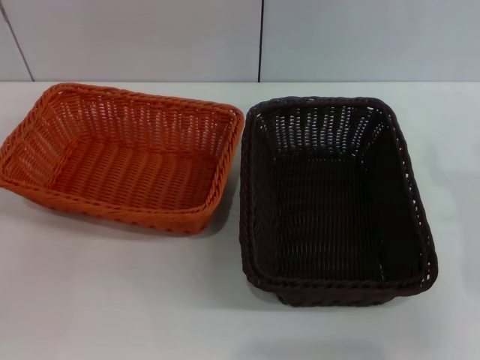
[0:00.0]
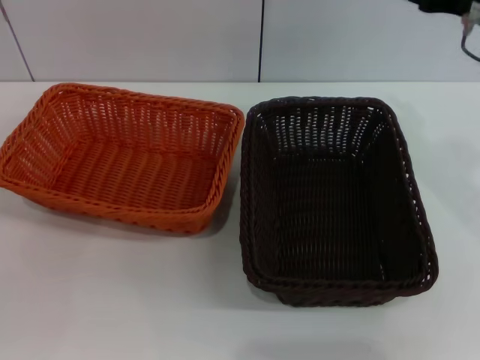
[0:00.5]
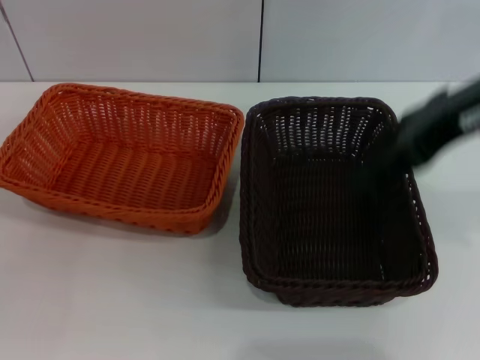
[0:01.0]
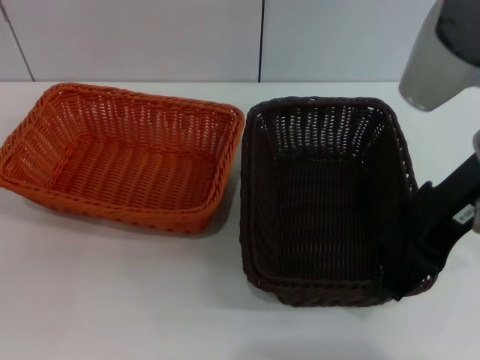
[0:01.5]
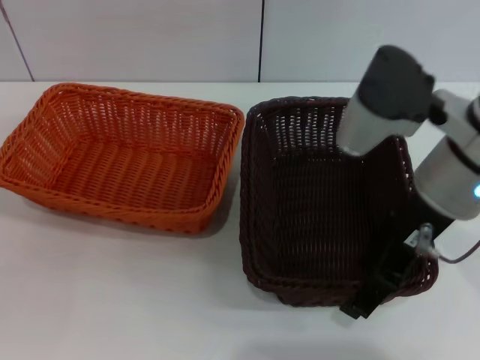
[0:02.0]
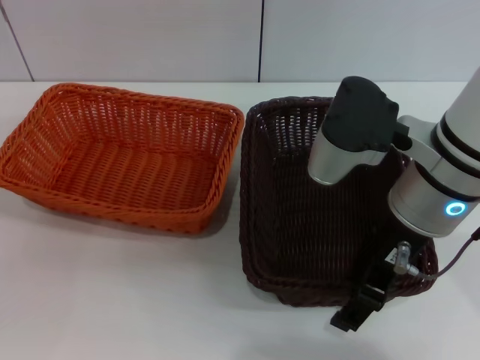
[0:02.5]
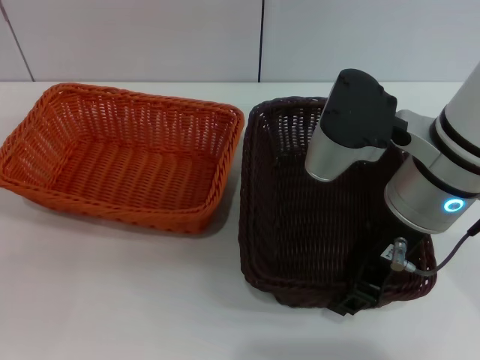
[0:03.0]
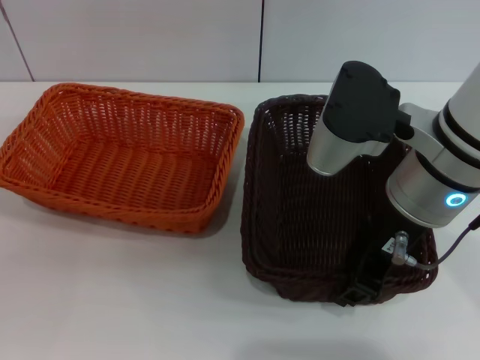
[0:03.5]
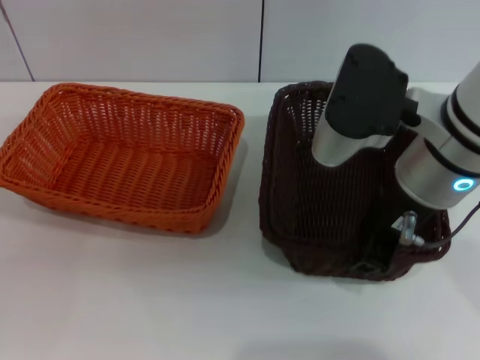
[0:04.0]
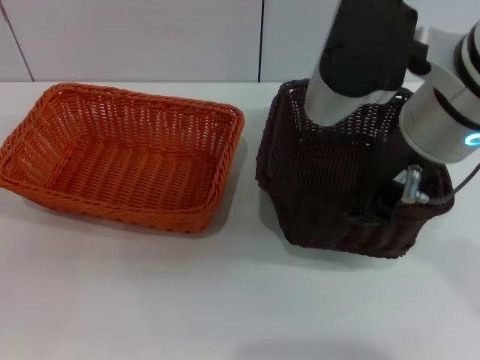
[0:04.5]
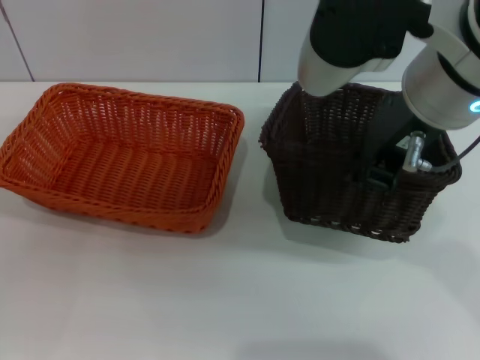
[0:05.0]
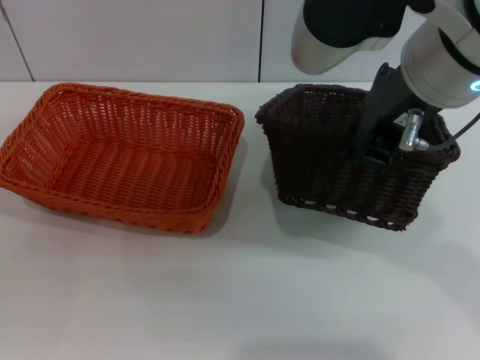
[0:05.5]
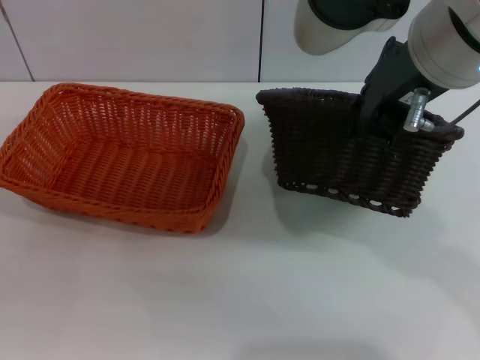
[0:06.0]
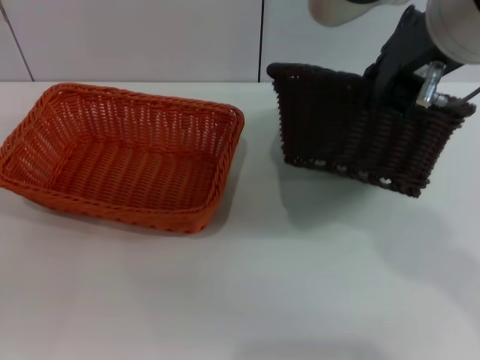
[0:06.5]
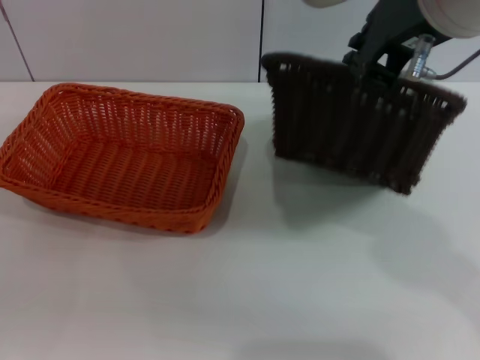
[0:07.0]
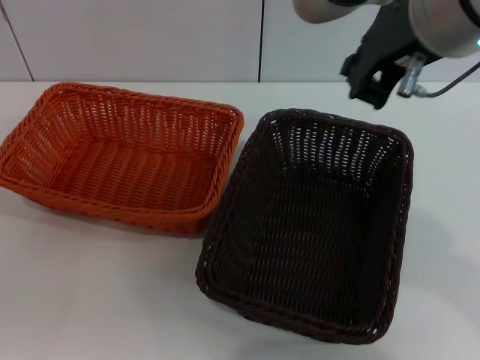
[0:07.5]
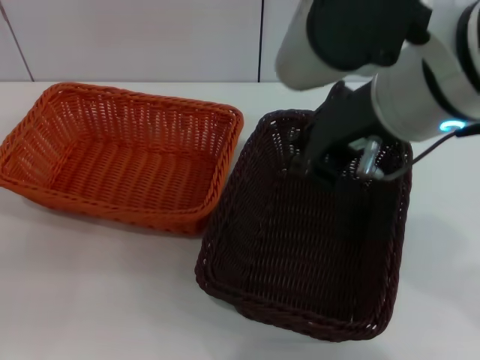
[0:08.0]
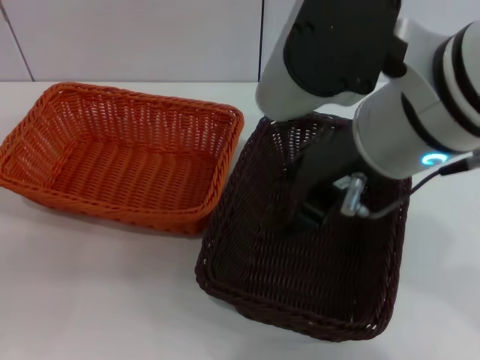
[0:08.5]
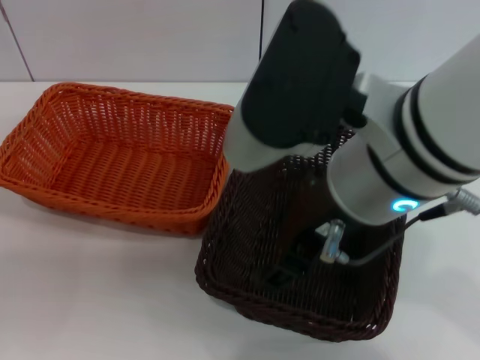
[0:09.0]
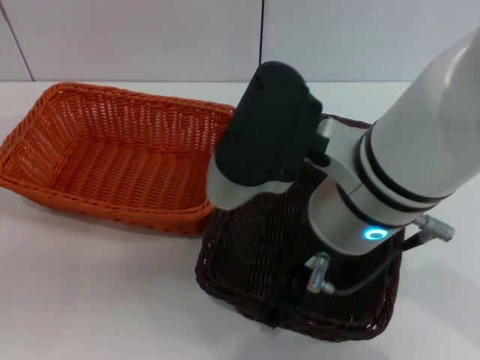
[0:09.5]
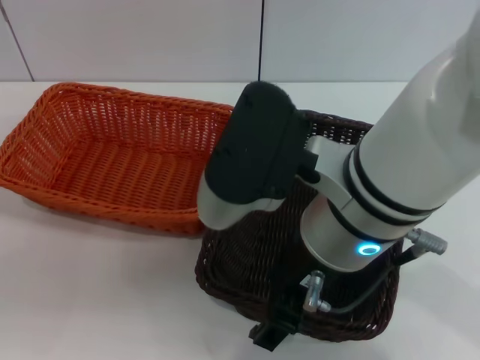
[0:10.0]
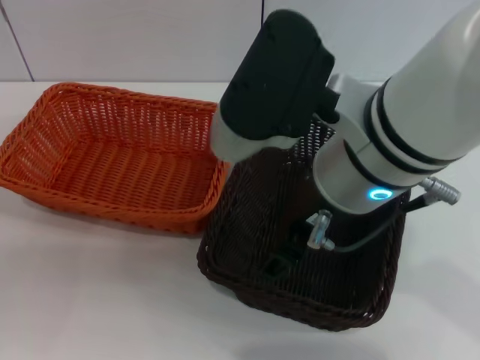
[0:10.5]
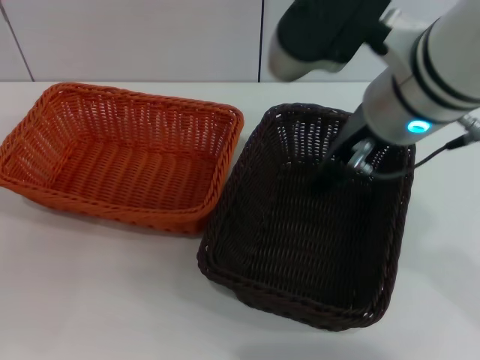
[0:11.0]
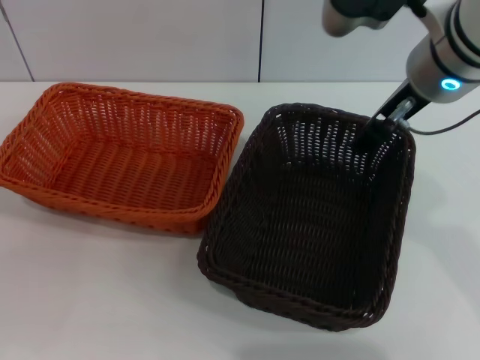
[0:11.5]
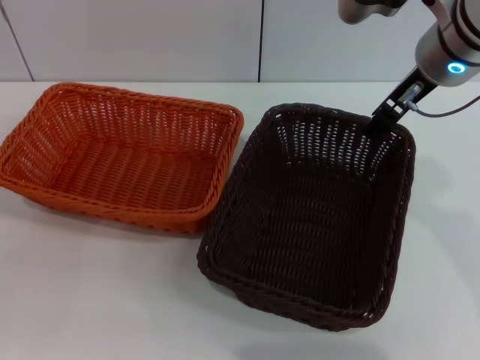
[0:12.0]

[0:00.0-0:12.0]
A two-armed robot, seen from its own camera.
0:00.0 to 0:02.0: The right gripper goes about 15 cm to the left and upward.
0:02.0 to 0:04.0: The right gripper closes up.
0:04.0 to 0:06.0: The right gripper is displaced upward by about 10 cm.
0:08.0 to 0:10.0: The right gripper goes roughly 5 cm downward, and opens up.
0:10.0 to 0:12.0: The right gripper goes about 20 cm forward and to the right.

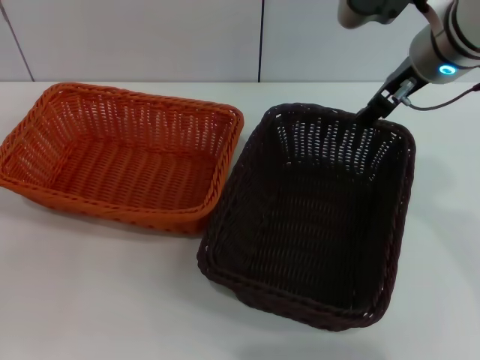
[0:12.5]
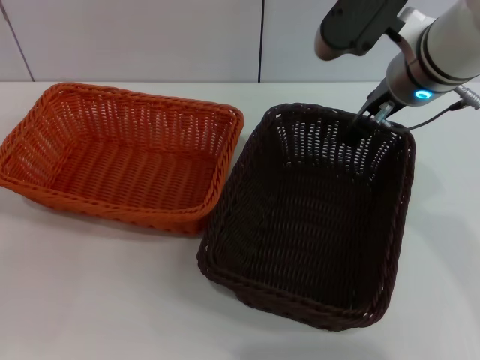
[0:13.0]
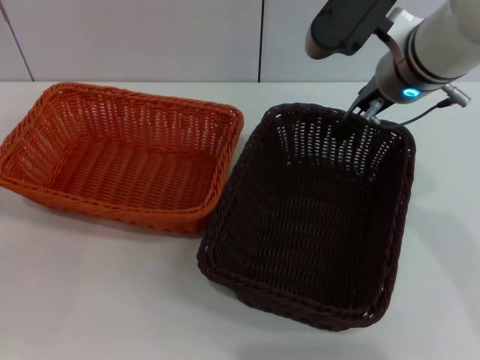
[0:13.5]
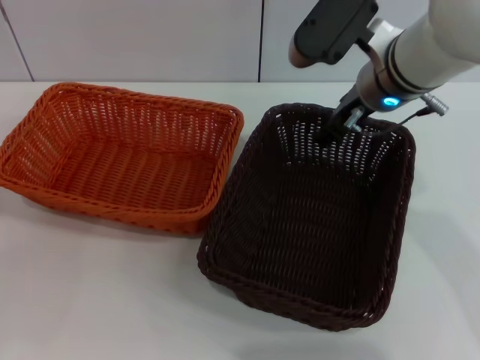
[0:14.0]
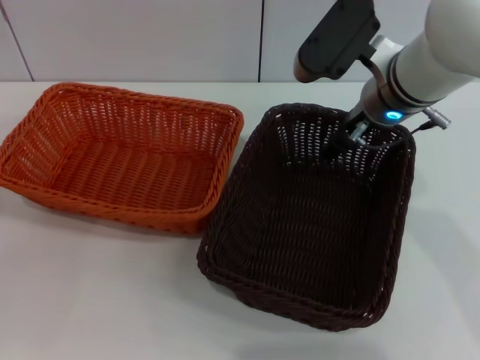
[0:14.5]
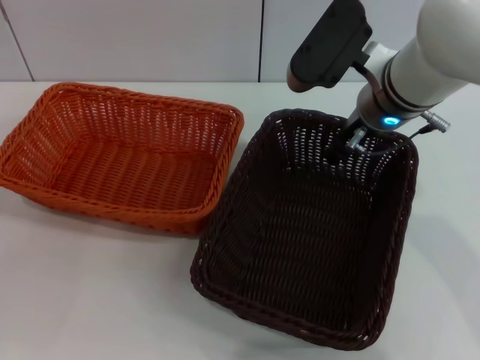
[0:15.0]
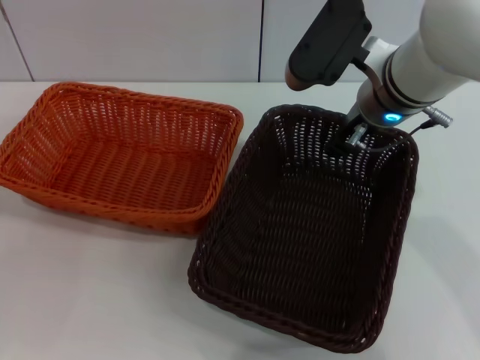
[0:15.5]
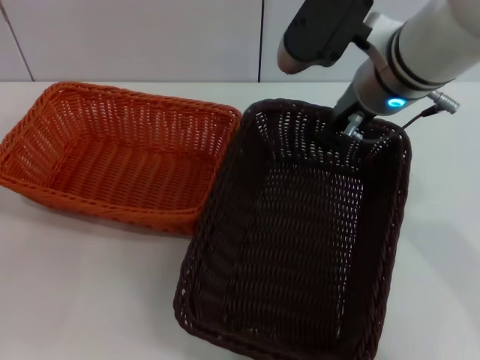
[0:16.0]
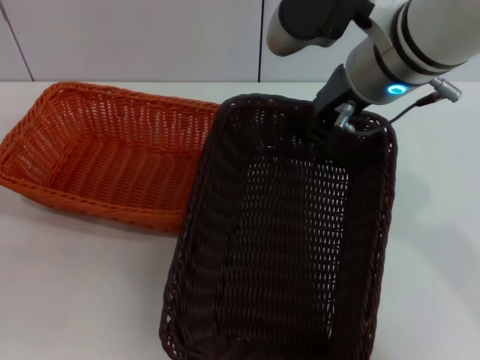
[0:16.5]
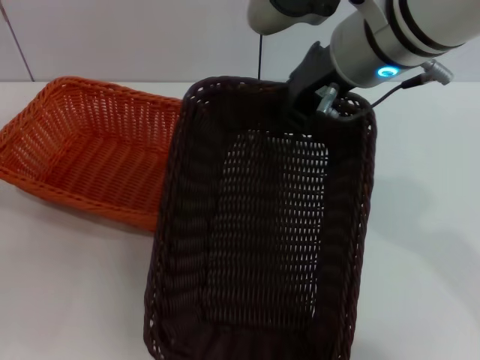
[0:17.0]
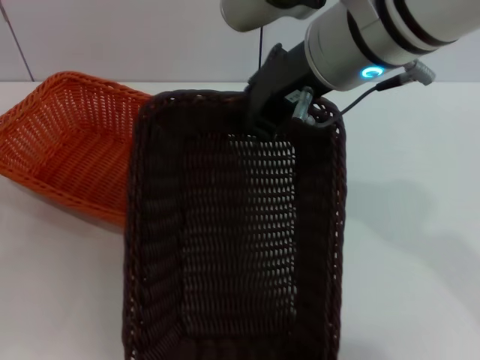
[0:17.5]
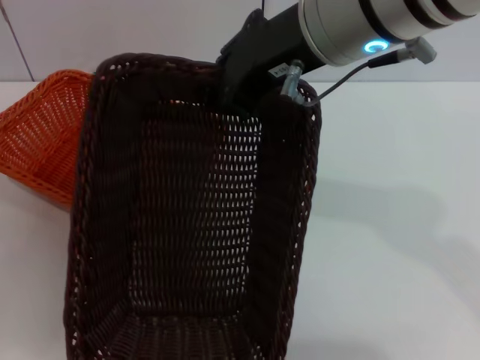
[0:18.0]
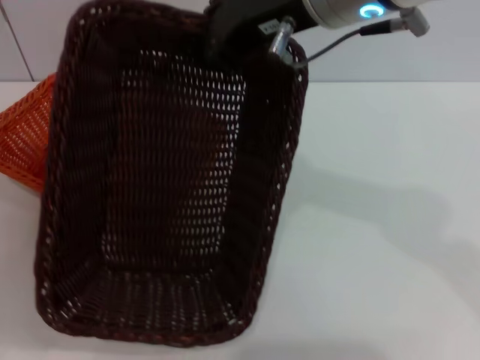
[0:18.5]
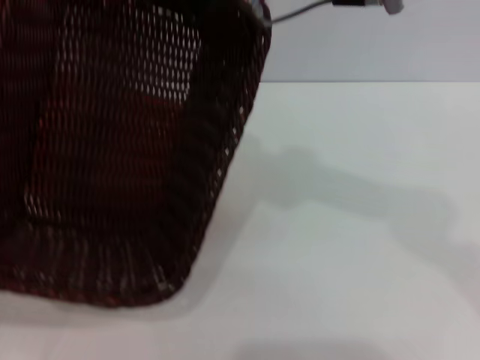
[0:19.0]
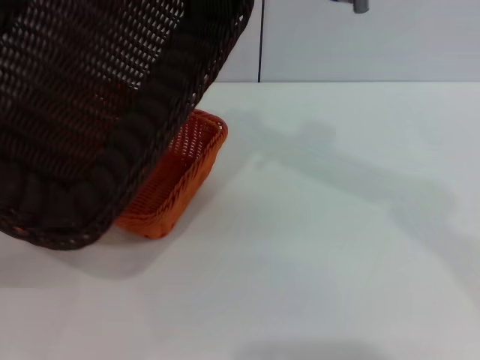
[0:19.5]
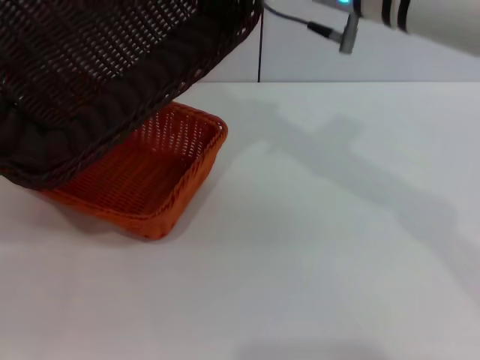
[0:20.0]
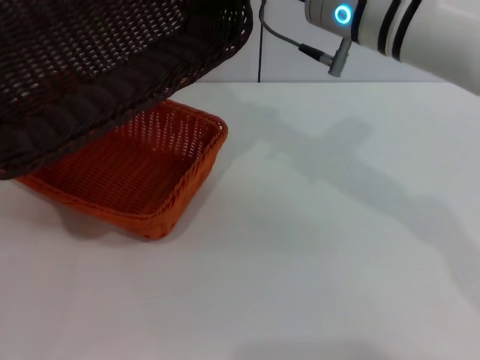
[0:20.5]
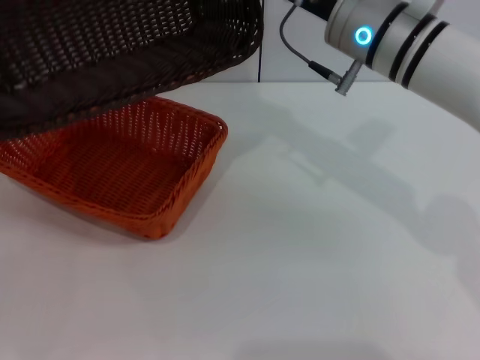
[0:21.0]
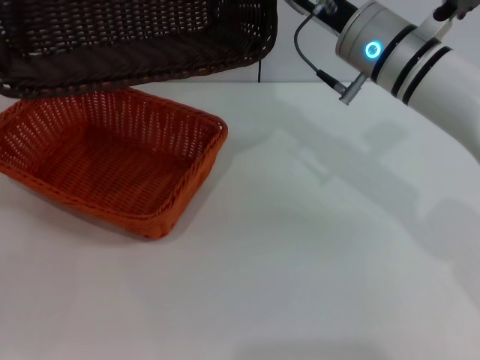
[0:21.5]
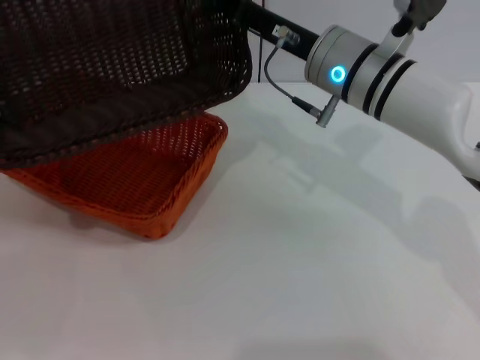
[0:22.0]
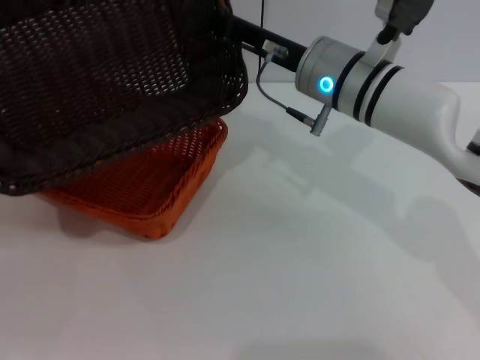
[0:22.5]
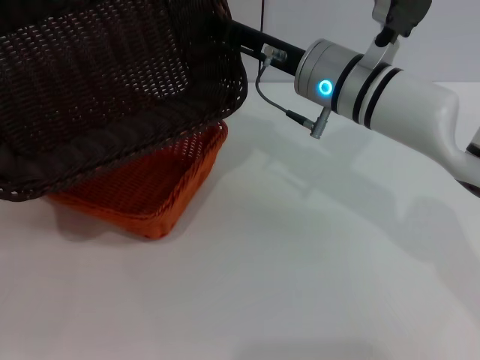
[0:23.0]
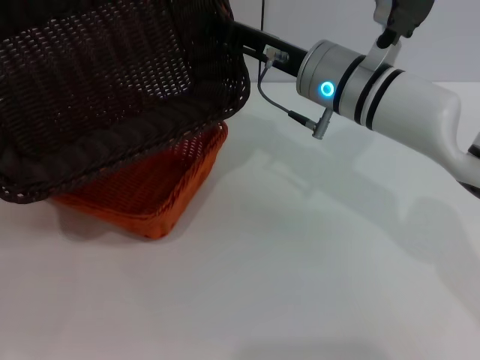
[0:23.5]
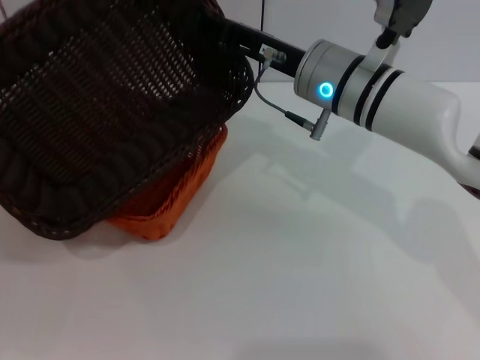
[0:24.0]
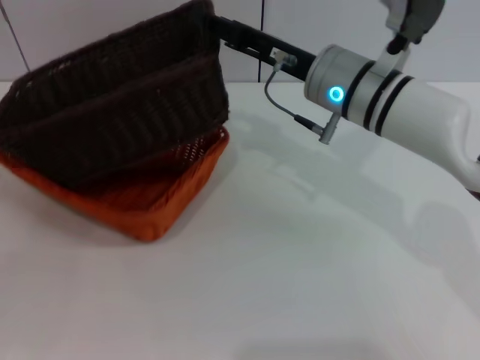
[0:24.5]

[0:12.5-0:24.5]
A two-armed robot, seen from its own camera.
Step, 0:12.5 to 0:16.0: Pick up the dark basket with the right gripper.
0:12.5 to 0:14.5: The right gripper goes roughly 5 cm downward.
0:14.5 to 0:16.5: The right gripper goes approximately 10 cm upward and backward, and closes up.
0:16.5 to 0:18.5: The right gripper shifts some 10 cm upward.
0:18.5 to 0:20.5: The right gripper travels downward and forward by approximately 10 cm.
0:20.5 to 0:22.5: The right gripper shifts approximately 10 cm downward.
0:22.5 to 0:24.5: The right gripper opens.

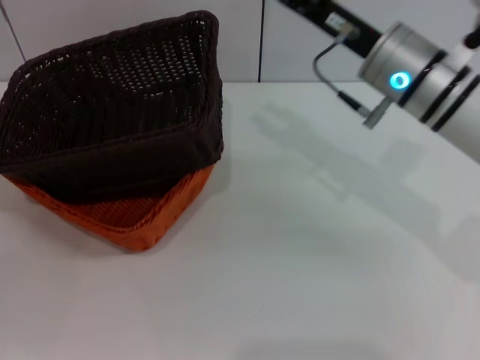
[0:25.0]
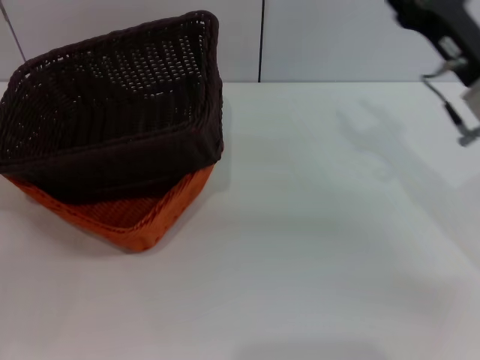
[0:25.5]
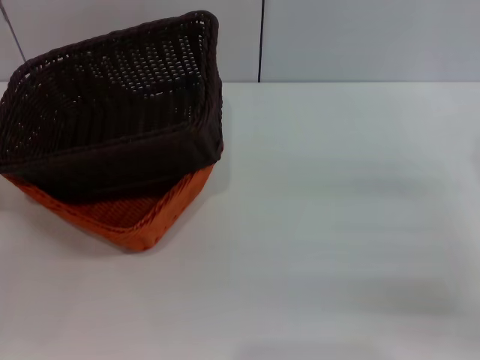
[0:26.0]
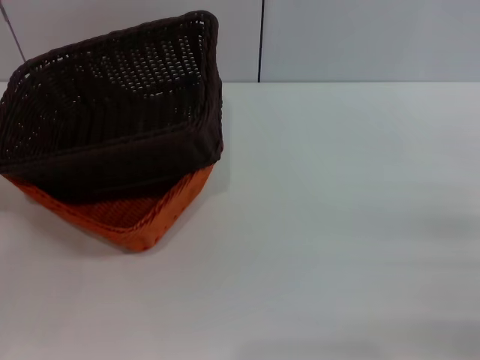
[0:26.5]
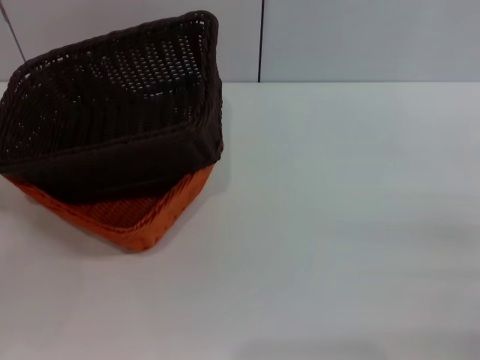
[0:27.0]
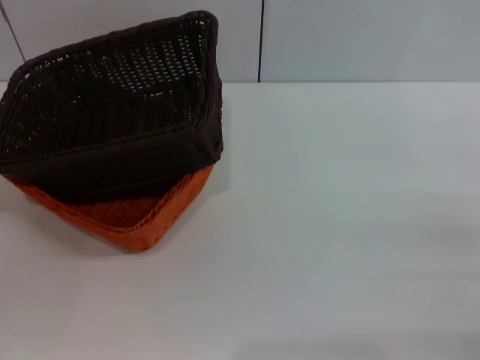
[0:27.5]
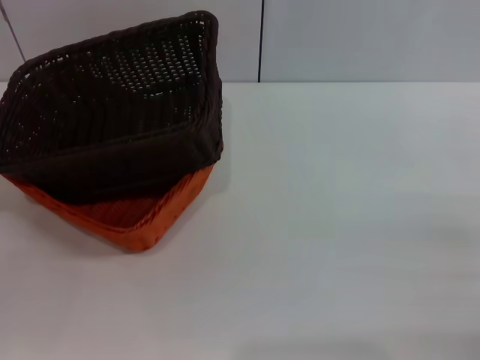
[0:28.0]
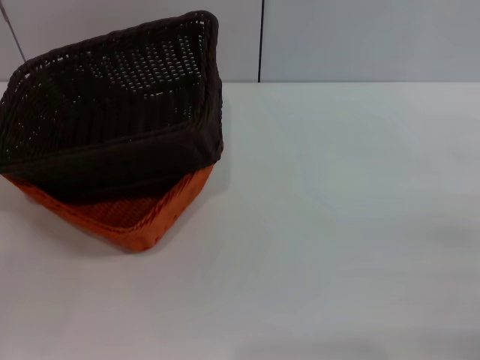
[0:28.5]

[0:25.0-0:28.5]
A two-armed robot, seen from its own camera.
0:25.0 to 0:27.0: The right gripper goes some 30 cm to the right, backward and downward.
0:27.0 to 0:28.5: Both grippers stay put.
